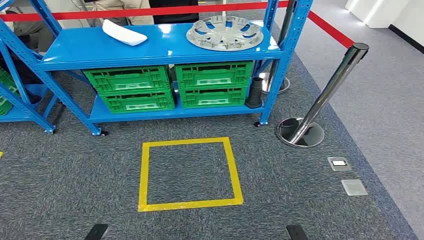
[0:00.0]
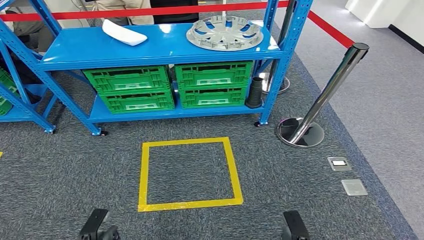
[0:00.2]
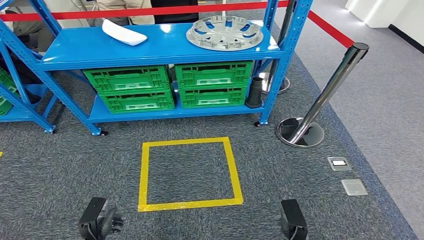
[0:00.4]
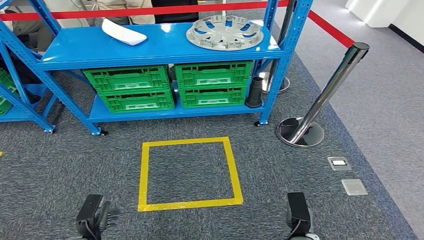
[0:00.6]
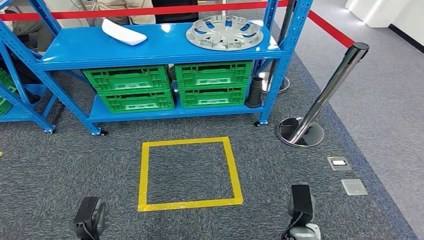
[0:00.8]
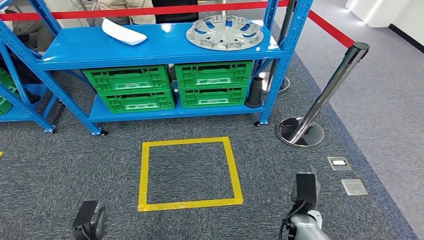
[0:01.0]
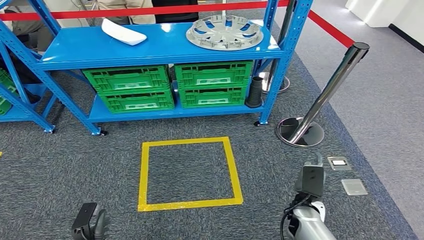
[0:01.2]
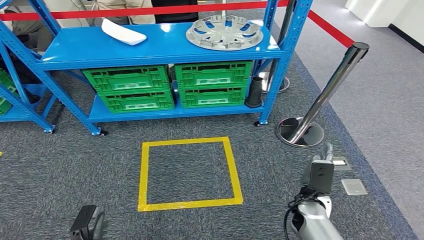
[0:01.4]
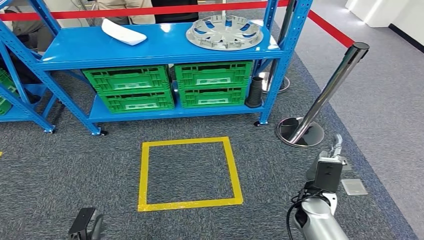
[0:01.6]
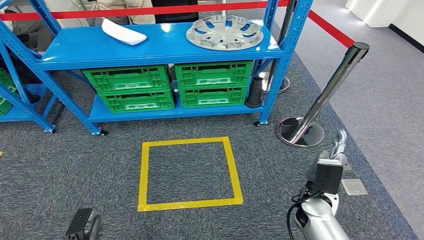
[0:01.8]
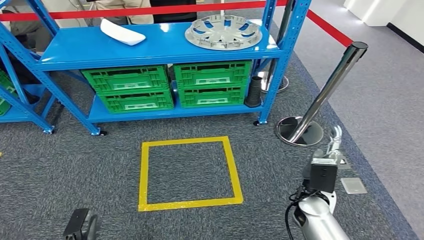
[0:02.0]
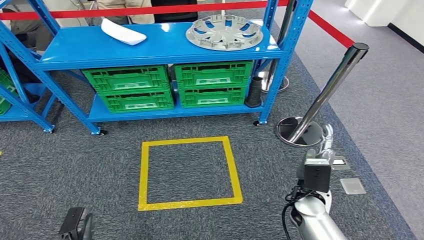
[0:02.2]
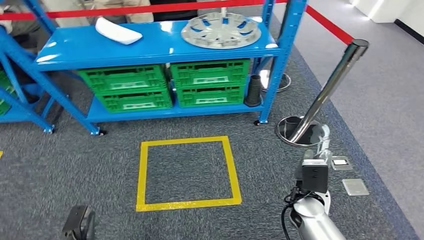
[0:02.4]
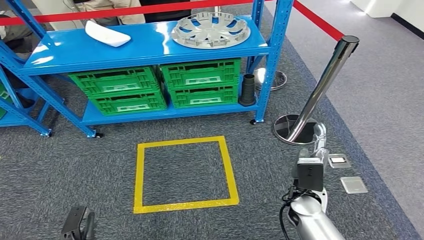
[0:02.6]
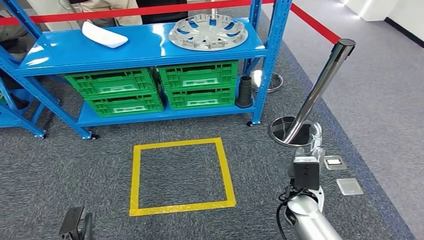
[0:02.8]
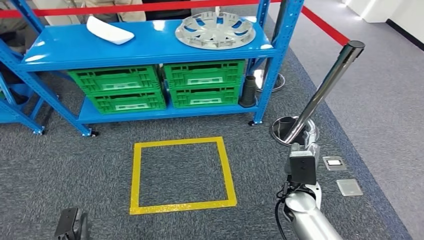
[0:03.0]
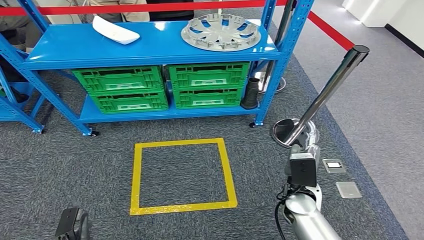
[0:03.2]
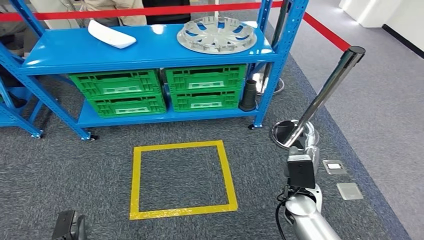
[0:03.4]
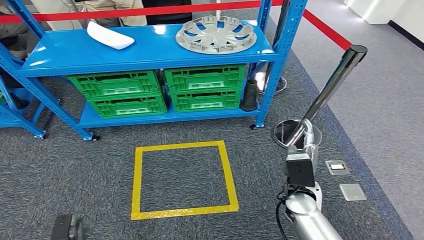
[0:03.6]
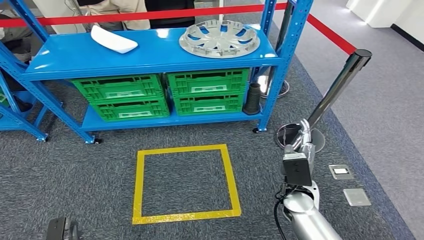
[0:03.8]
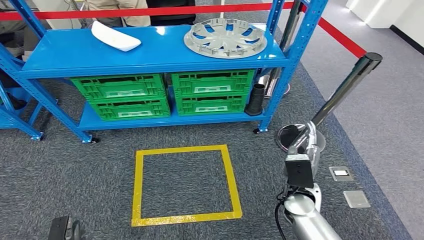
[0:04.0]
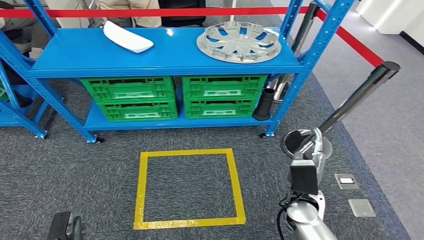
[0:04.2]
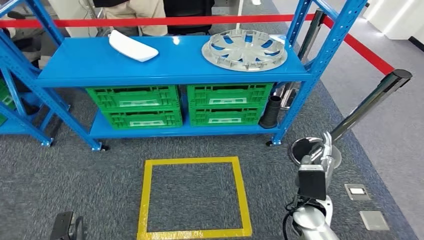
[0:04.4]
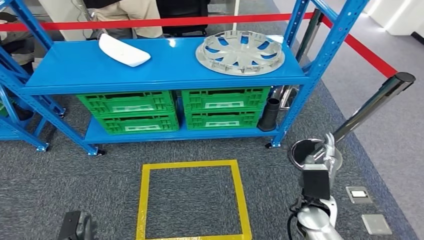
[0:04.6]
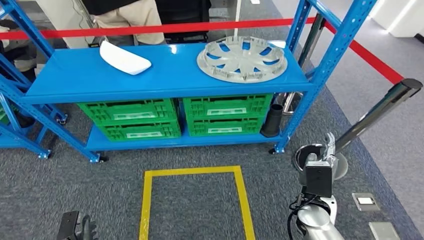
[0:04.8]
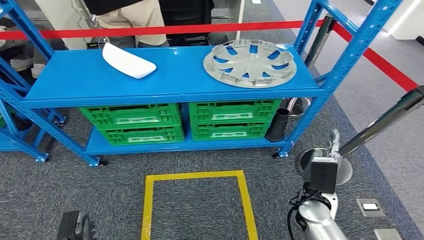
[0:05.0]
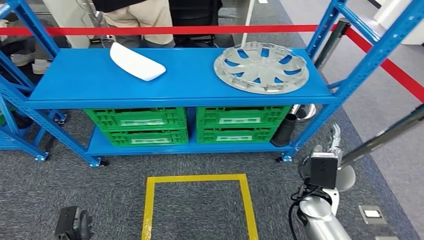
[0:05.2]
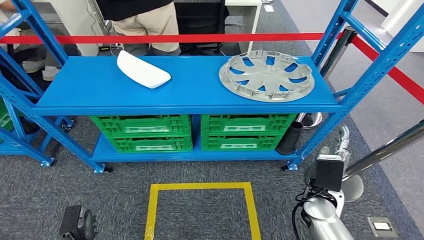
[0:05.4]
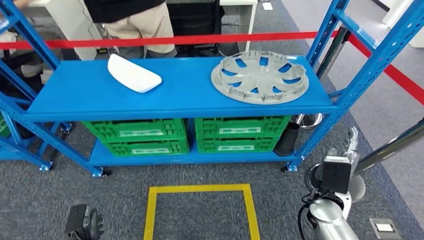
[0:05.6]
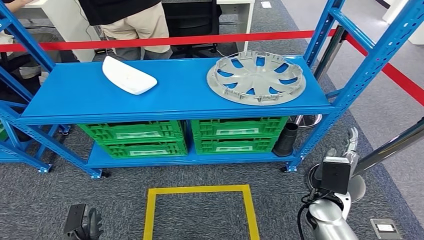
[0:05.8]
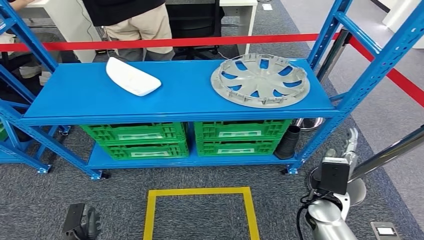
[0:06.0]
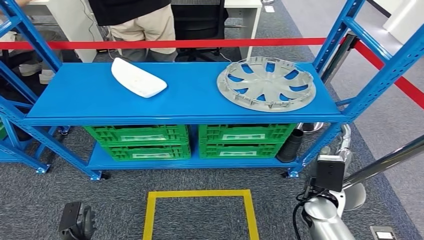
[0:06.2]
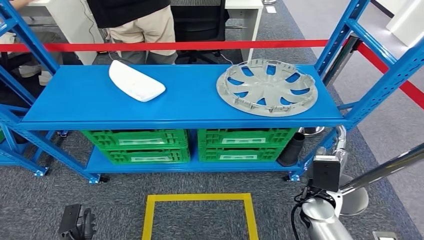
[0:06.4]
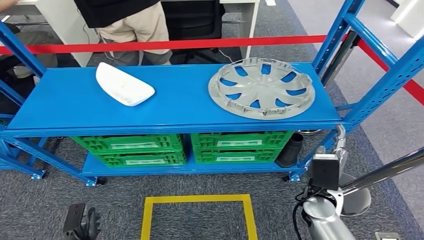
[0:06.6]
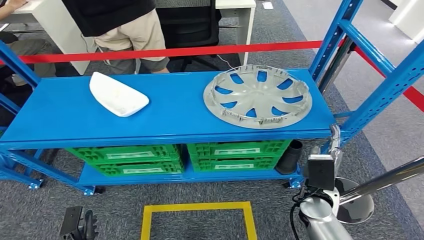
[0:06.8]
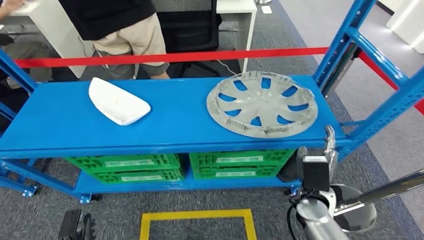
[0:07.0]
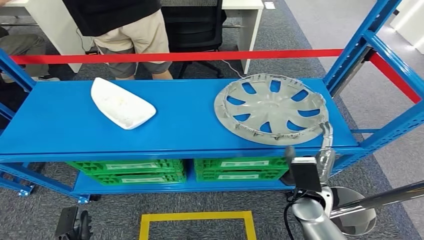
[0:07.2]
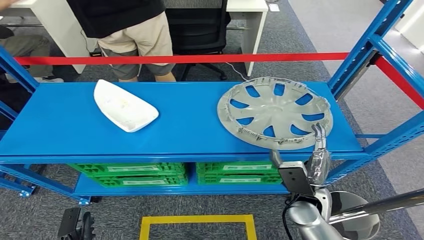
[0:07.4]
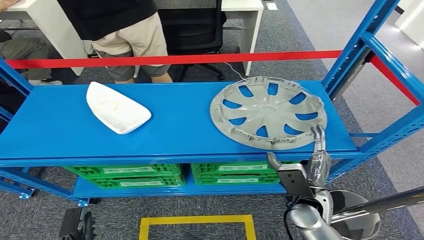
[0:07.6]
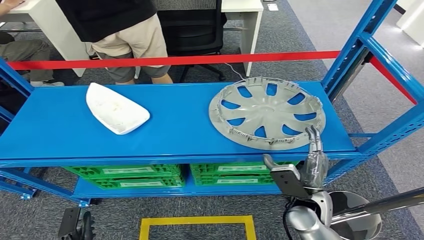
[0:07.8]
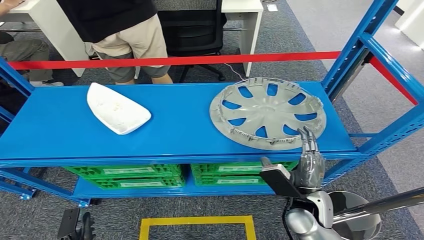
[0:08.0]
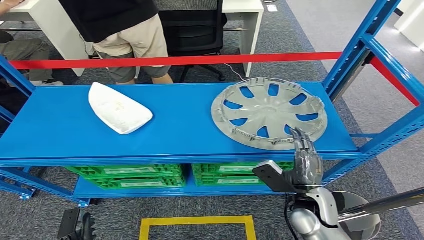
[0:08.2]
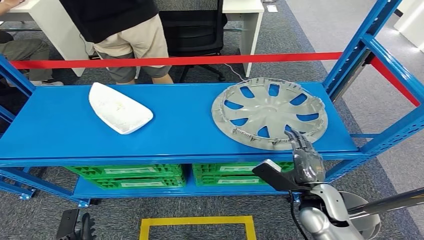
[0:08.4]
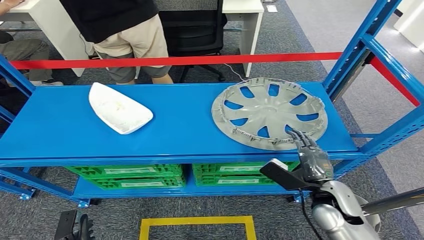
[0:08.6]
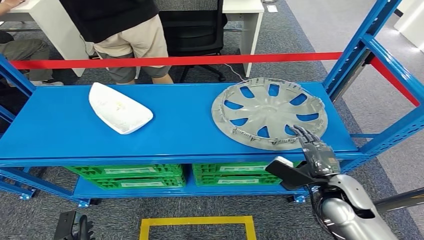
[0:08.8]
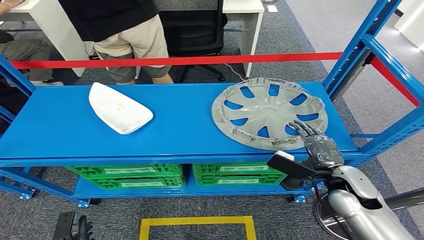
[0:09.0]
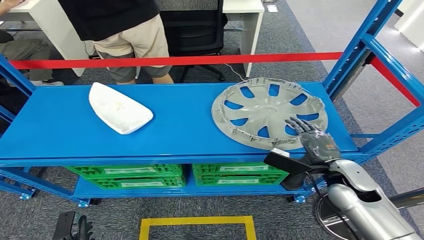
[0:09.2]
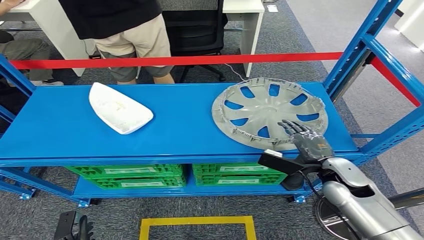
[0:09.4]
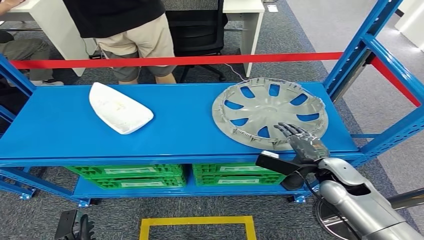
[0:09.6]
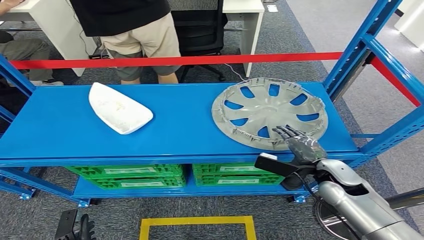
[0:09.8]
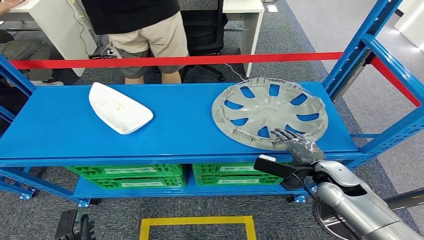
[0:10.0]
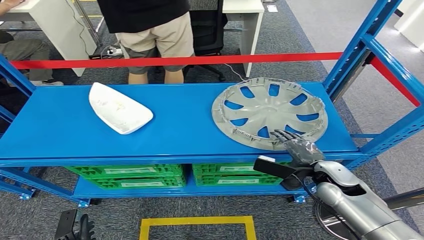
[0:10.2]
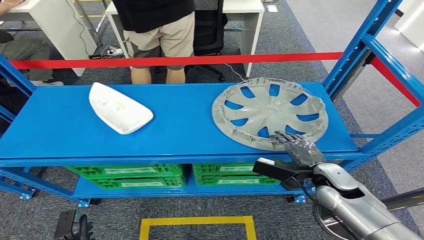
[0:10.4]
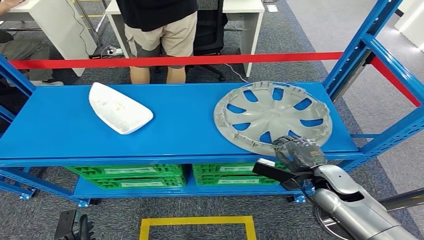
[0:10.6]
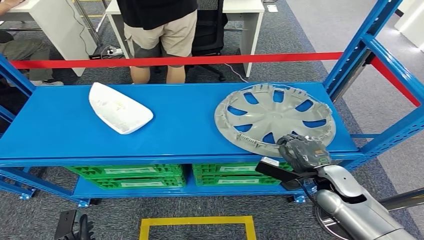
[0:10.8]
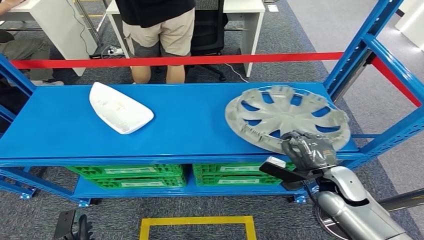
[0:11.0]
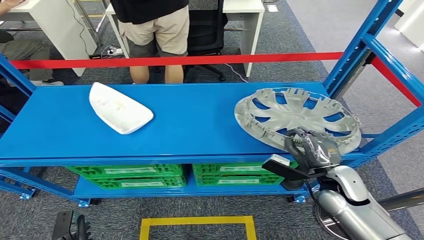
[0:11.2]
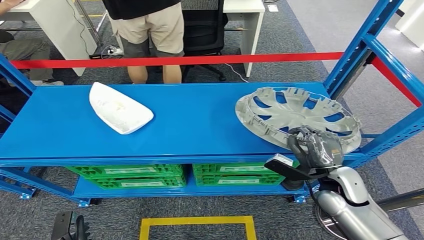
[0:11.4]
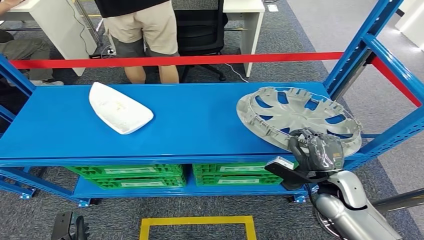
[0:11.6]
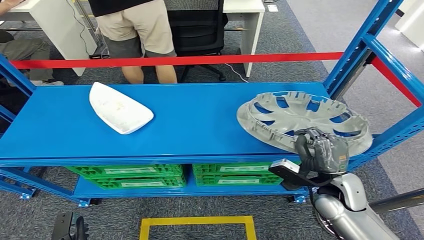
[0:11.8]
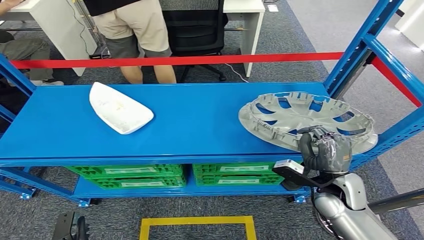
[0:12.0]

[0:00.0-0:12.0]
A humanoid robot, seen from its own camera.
0:07.6 to 0:09.0: The right hand travels to the right and upward by approximately 10 cm.
0:09.0 to 0:10.4: The hands stay close to where they were, moving slightly.

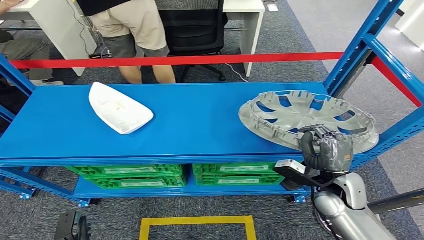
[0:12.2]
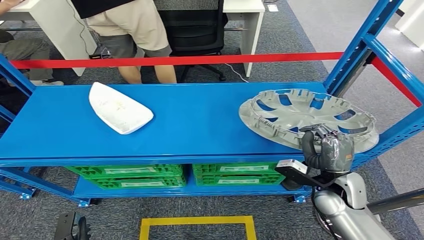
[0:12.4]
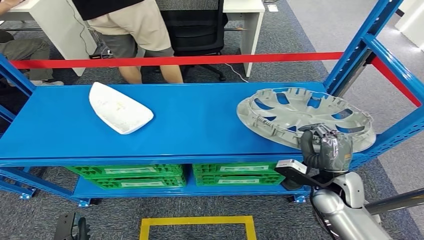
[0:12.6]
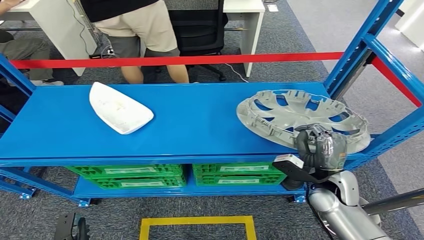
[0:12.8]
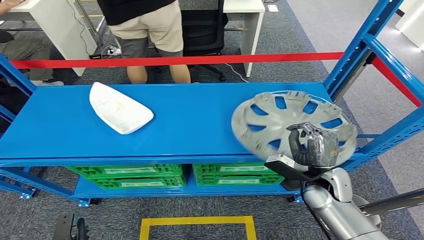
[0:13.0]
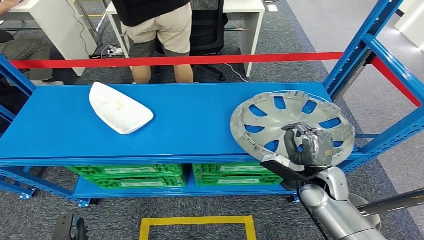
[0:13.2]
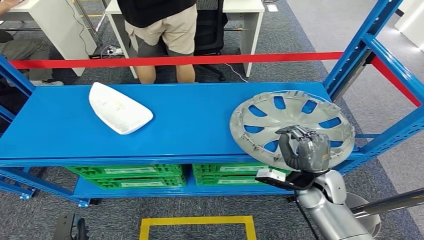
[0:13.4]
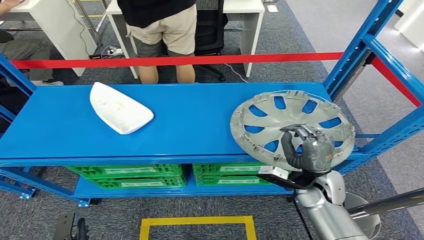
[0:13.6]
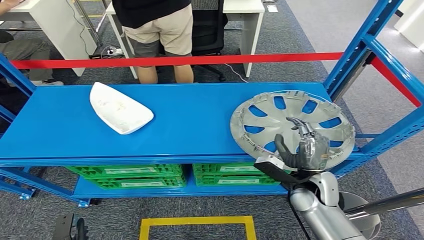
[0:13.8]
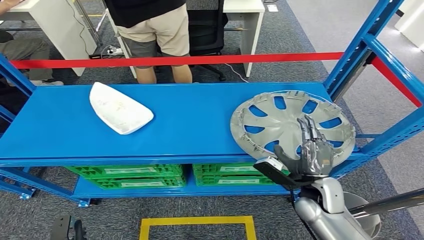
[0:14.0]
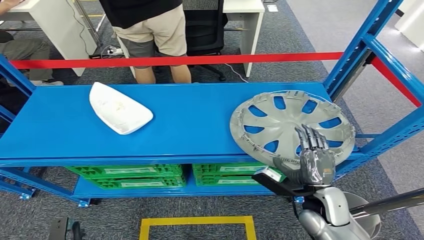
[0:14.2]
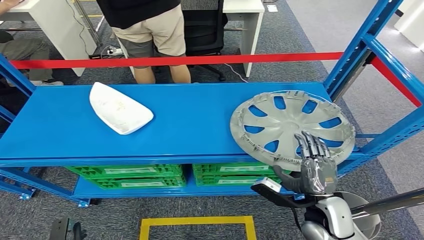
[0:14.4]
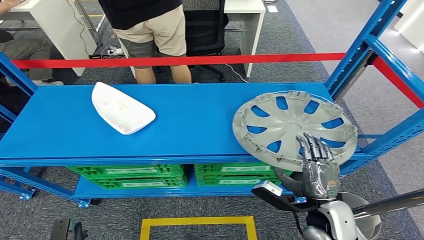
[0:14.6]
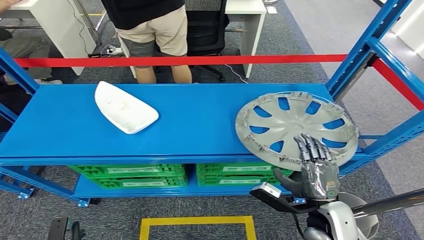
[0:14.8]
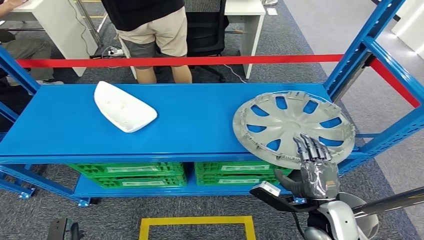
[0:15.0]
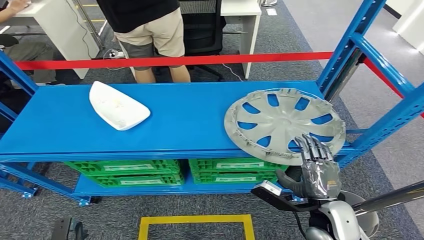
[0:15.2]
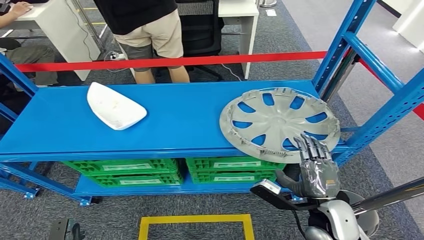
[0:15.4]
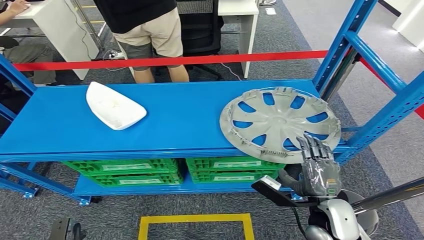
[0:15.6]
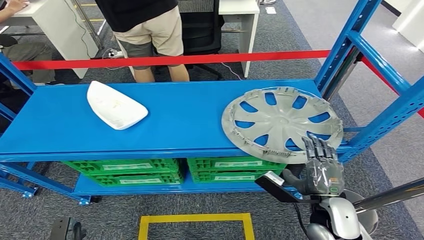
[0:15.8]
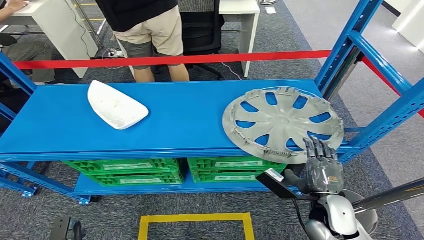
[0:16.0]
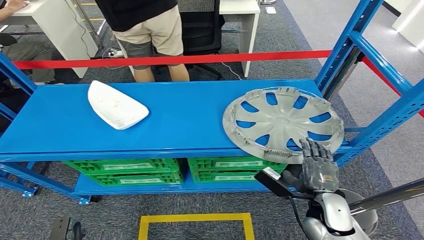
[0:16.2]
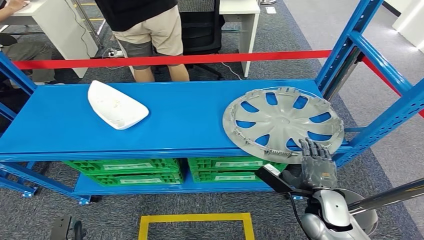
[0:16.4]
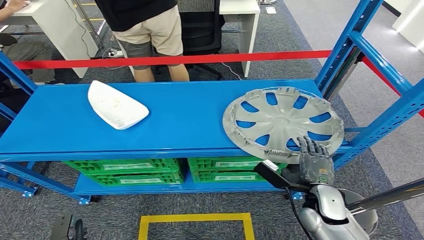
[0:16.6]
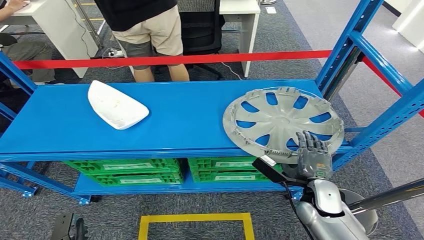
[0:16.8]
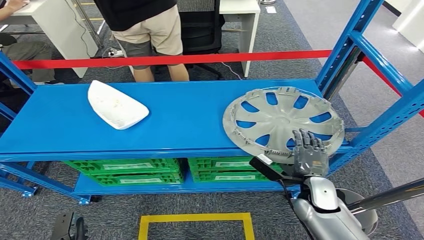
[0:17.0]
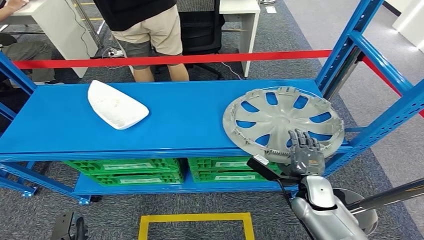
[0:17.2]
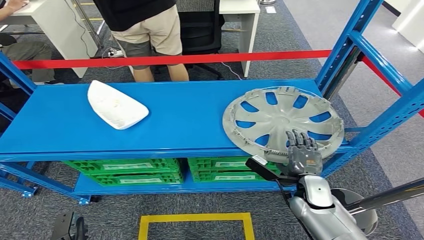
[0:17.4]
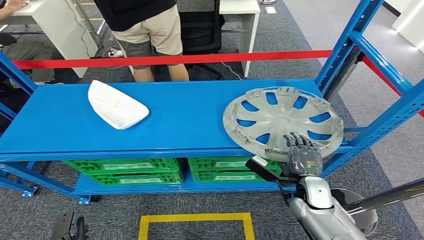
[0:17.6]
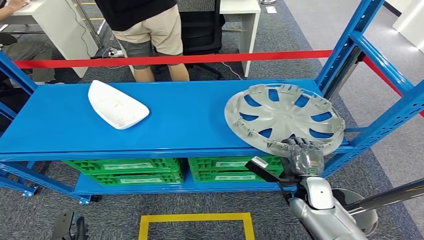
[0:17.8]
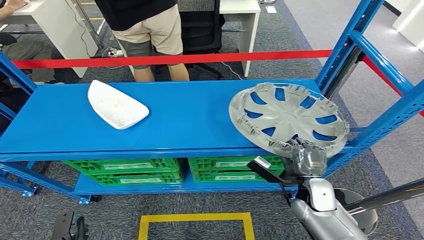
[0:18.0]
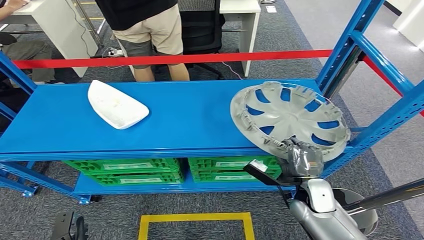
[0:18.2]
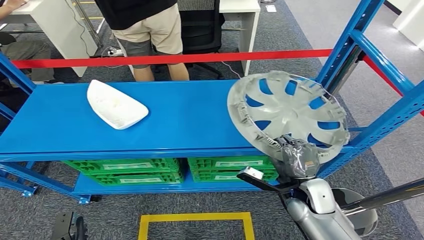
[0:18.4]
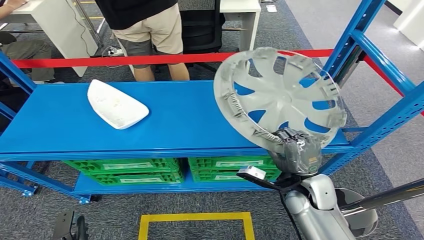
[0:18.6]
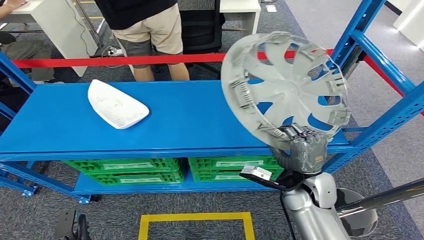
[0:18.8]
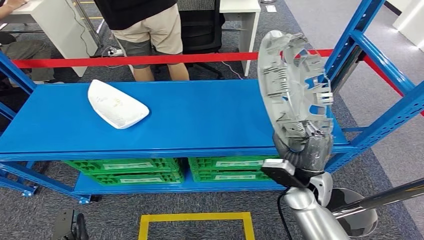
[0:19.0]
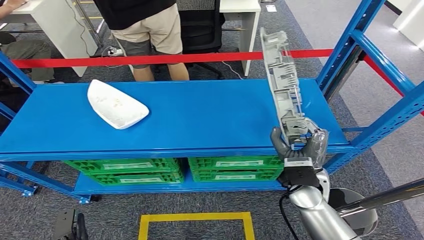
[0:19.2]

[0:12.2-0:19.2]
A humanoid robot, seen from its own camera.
0:12.2 to 0:13.6: There are only small adjustments of the hands.
0:13.6 to 0:15.0: The right hand is displaced backward by some 10 cm.
0:16.4 to 0:17.8: The right hand moves forward, about 5 cm.
0:17.8 to 0:19.2: The right hand goes roughly 10 cm upward.
